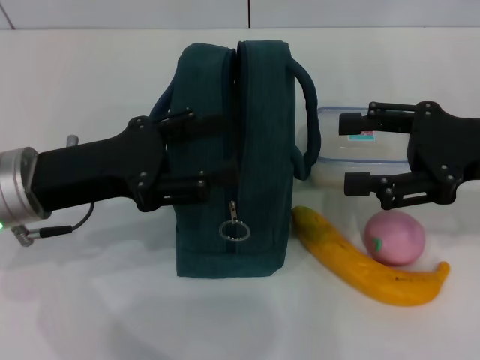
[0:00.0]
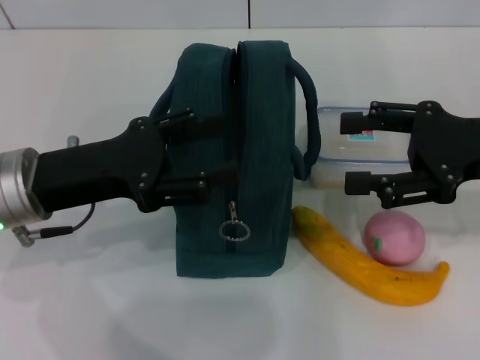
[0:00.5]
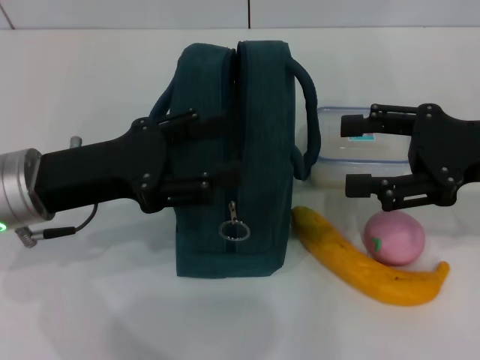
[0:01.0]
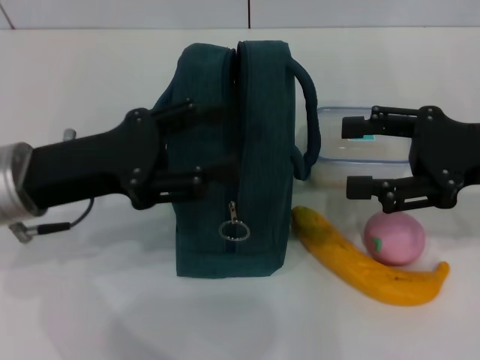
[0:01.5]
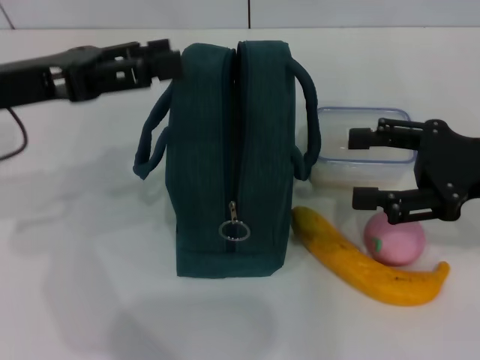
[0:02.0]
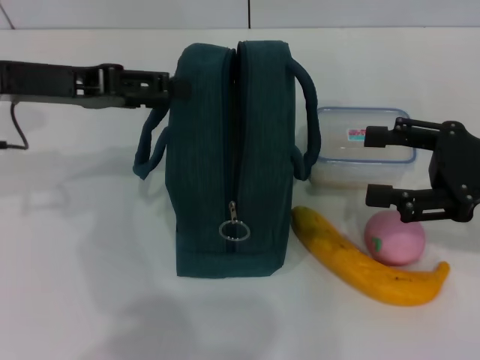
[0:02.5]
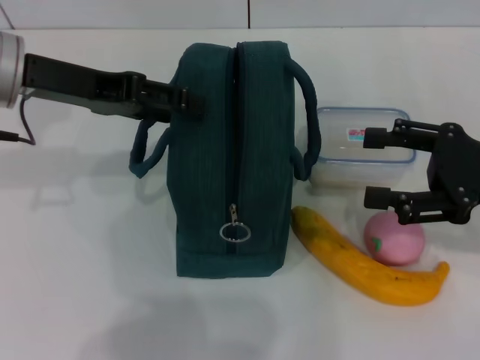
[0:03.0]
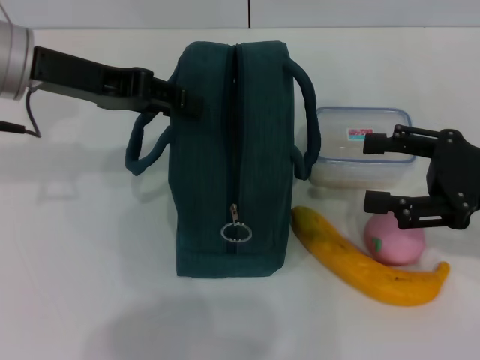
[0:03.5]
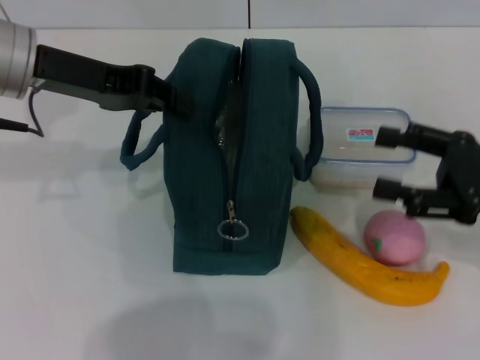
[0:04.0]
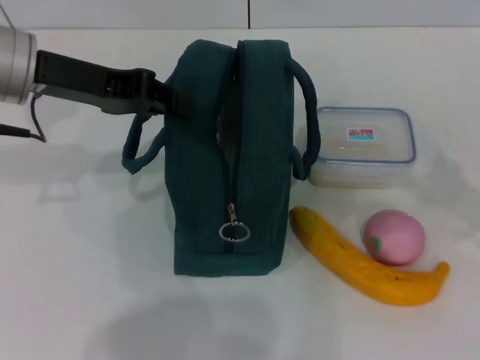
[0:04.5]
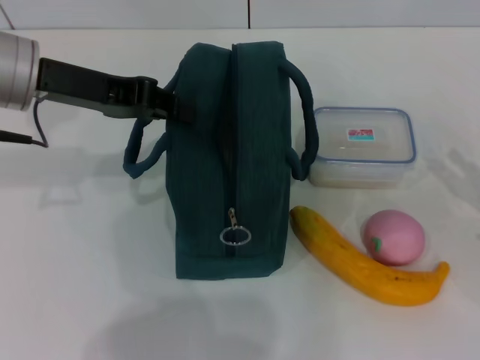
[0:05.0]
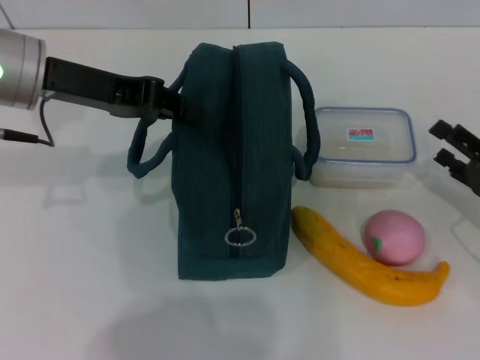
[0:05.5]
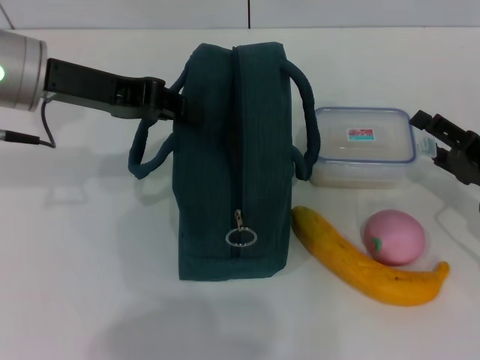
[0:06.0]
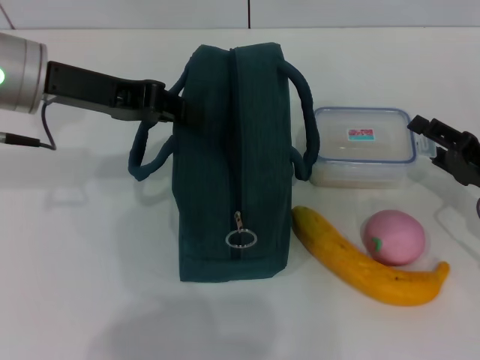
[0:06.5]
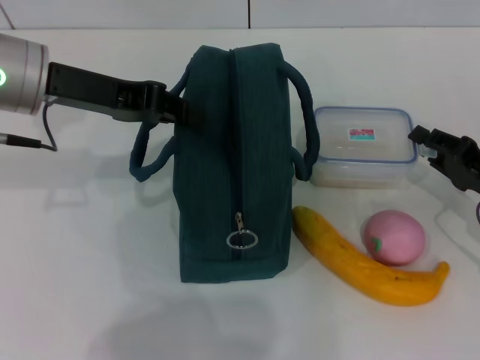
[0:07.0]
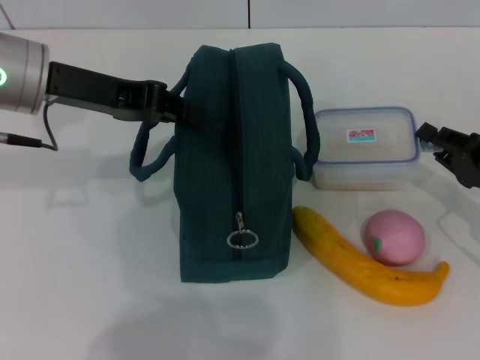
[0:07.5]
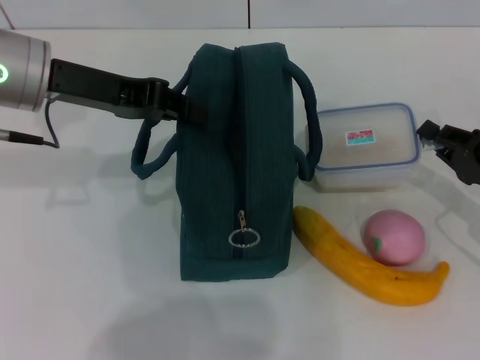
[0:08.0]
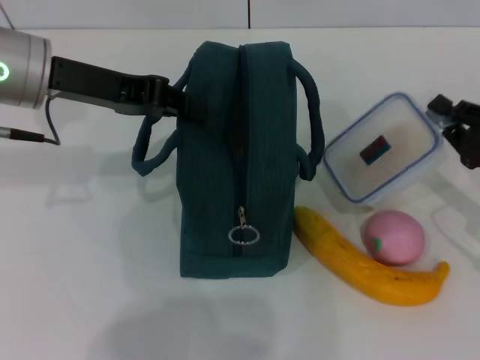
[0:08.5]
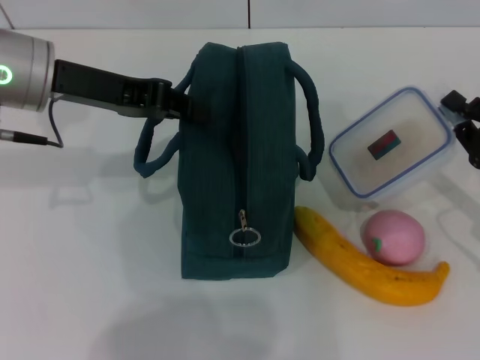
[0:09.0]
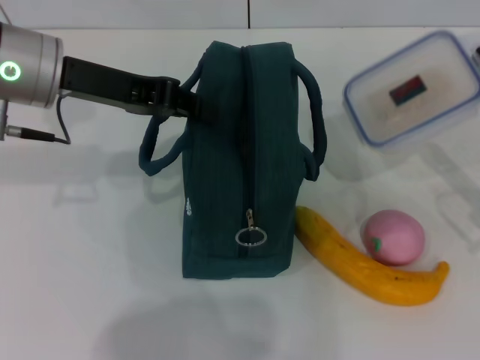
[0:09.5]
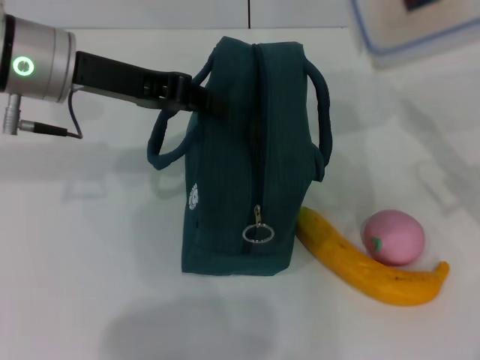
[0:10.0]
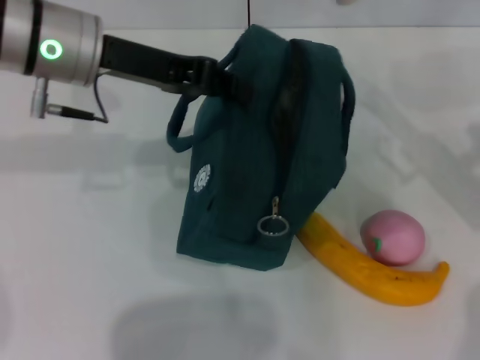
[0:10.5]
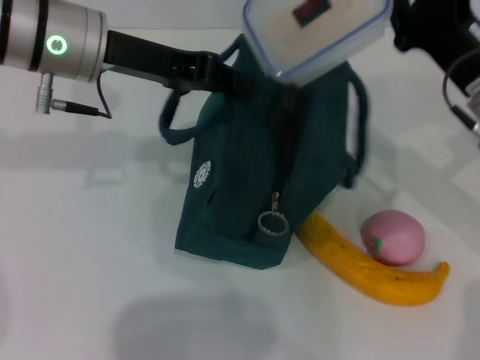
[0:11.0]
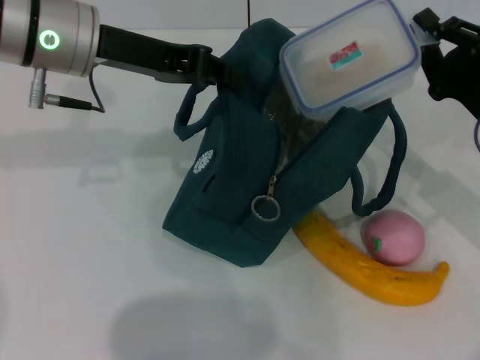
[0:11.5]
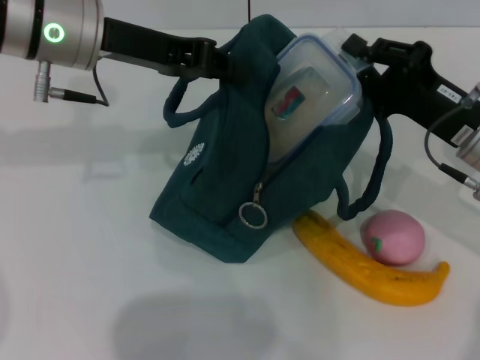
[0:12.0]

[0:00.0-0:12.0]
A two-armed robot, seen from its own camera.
Step, 0.0 to 4.0 s: Hold the lunch bag with your left hand.
Step, 5.0 to 8.0 s: Pick up the lunch box with your right hand.
0.0 to 2.0 s: The left gripper is displaced upward by roughly 5 cm.
2.0 to 4.0 s: The left gripper heads forward, covering roughly 5 cm, and closes its fingers.
4.0 to 6.0 s: The right gripper moves downward, about 10 cm.
6.0 to 8.0 s: The right gripper closes.
8.0 to 10.0 s: The right gripper travels upward by about 5 cm.
10.0 to 12.0 s: The right gripper heads to the left, covering some 5 cm.

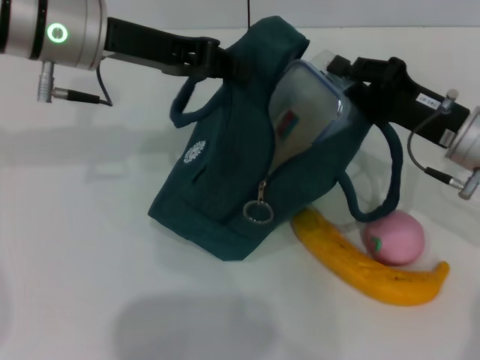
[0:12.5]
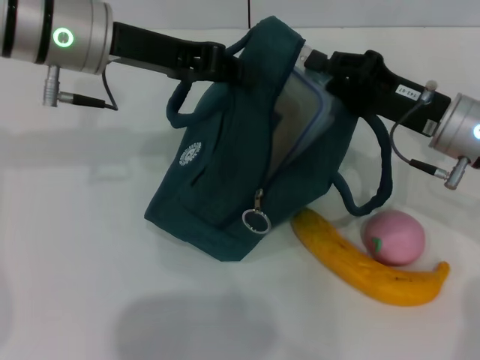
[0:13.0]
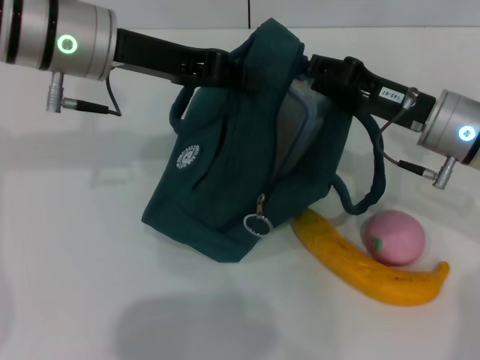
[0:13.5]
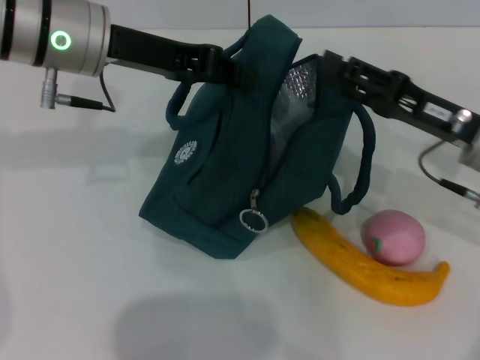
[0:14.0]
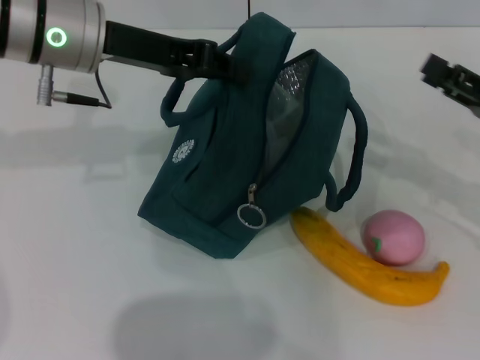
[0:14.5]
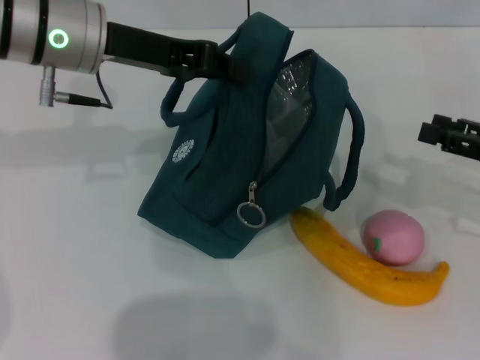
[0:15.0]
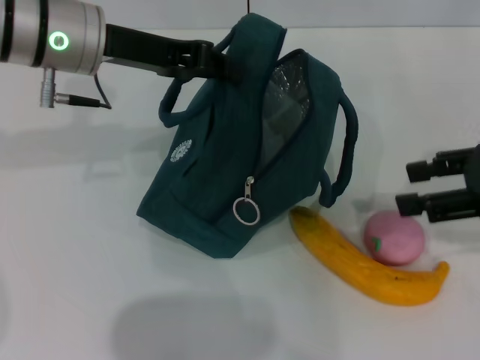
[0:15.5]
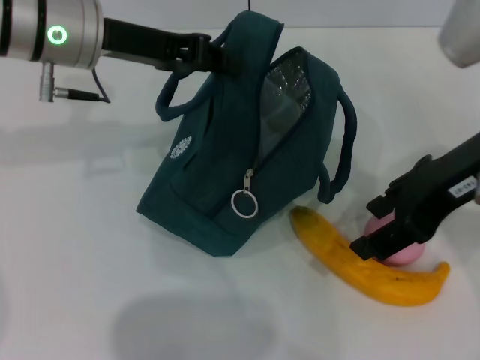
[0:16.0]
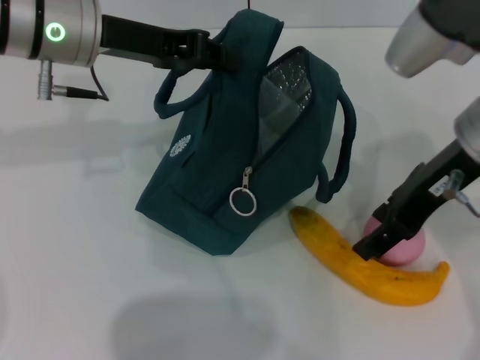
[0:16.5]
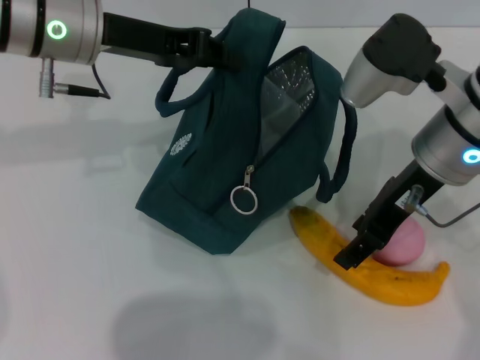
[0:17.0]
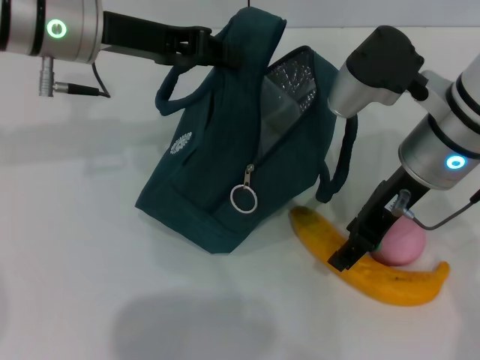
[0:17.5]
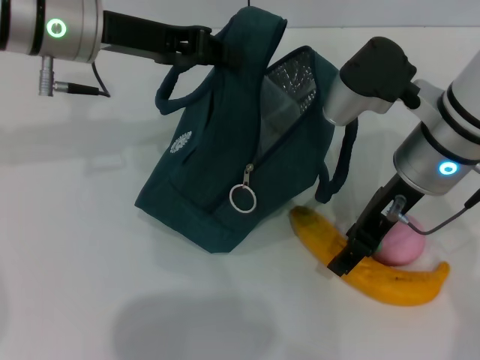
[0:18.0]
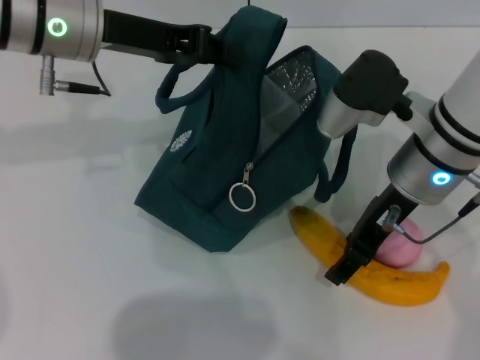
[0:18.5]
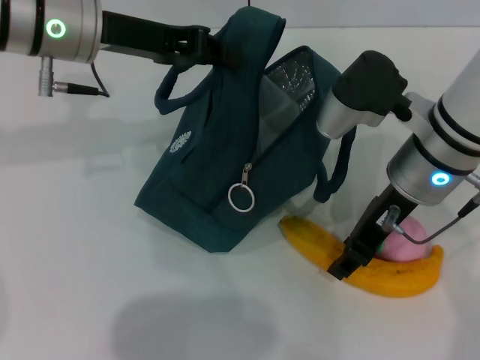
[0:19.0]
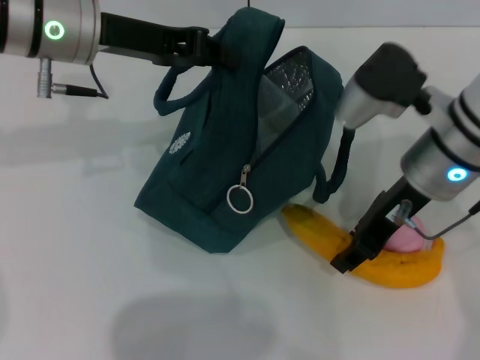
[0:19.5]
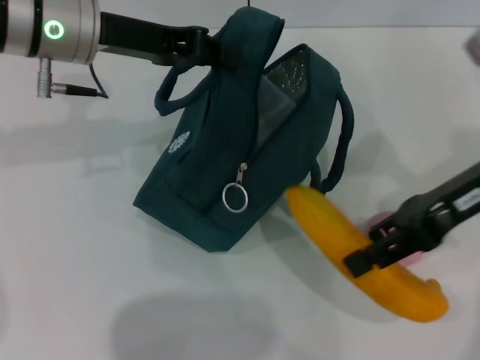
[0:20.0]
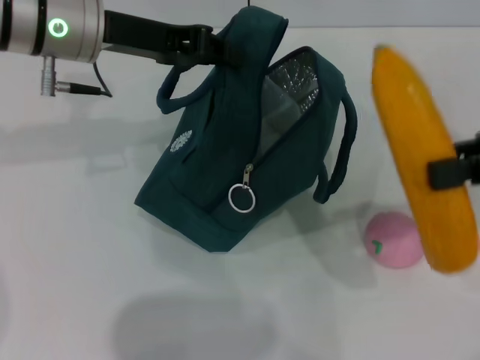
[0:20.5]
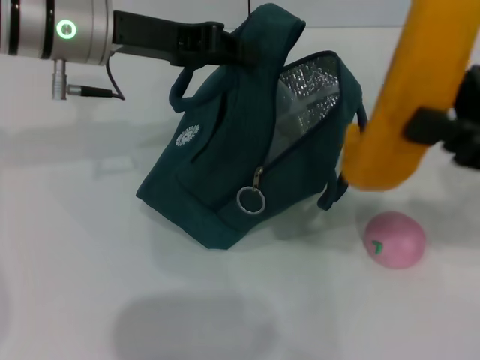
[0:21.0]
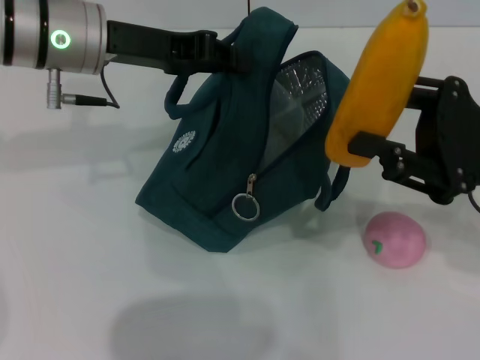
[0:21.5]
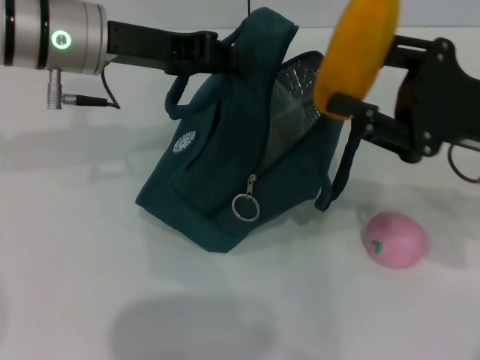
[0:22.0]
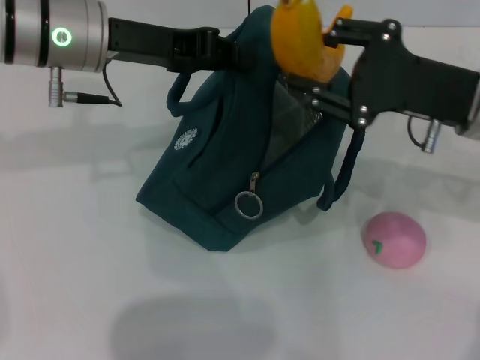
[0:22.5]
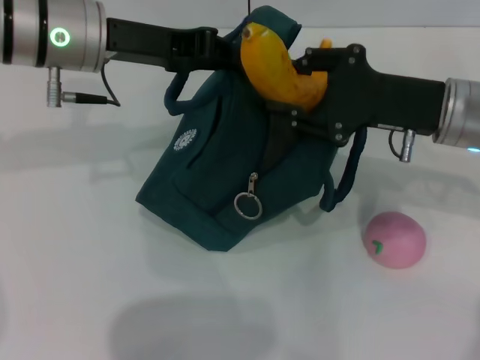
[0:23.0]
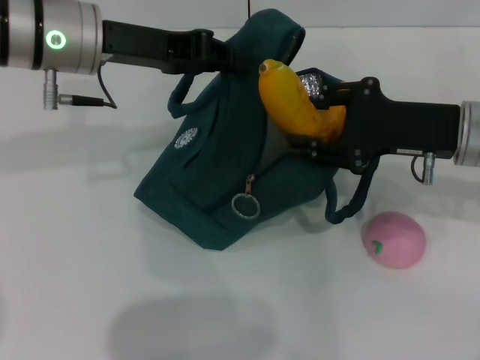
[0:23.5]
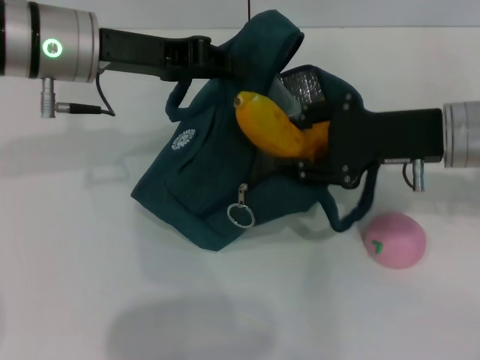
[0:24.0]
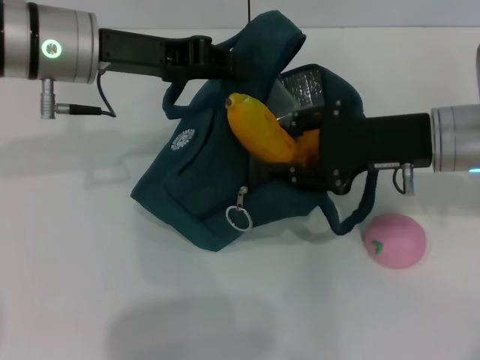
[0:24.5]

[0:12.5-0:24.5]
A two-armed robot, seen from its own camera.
Step, 14.0 to 19.0 s: Take the banana with your right hand.
12.5 to 14.5 s: The right gripper heads to the right, covering approximately 10 cm, and opens up.
14.5 to 16.5 s: The right gripper is displaced to the left and upward by some 20 cm.
16.5 to 18.5 s: The right gripper moves downward, roughly 5 cm.
18.5 to 20.5 s: The right gripper is displaced to the right by some 15 cm.
20.5 to 22.5 s: The right gripper goes roughly 10 cm to the left and downward.

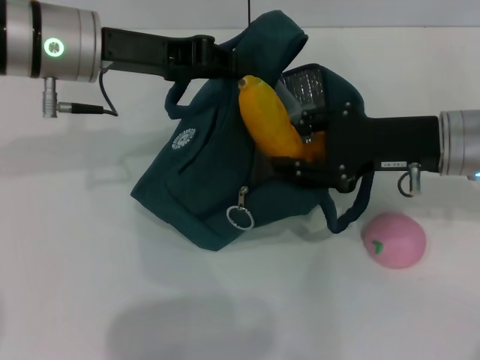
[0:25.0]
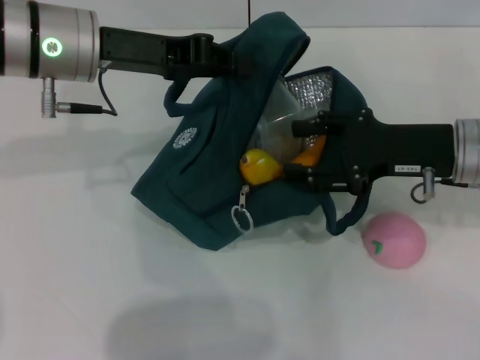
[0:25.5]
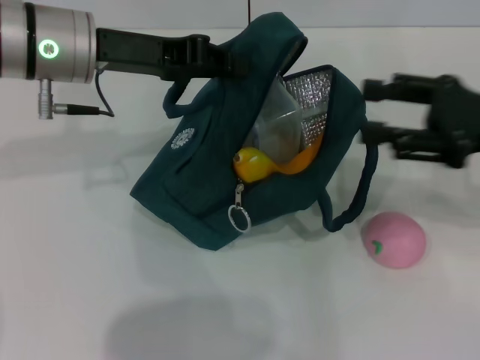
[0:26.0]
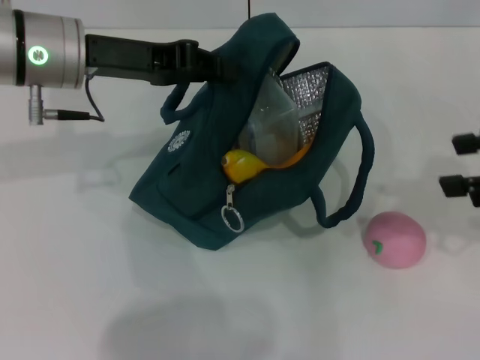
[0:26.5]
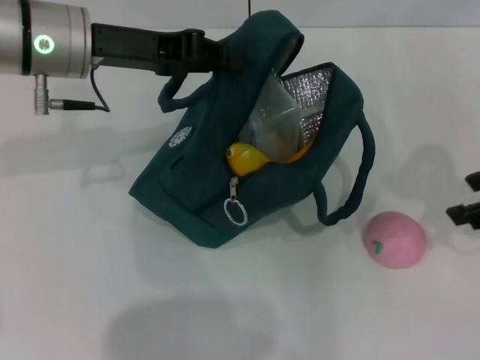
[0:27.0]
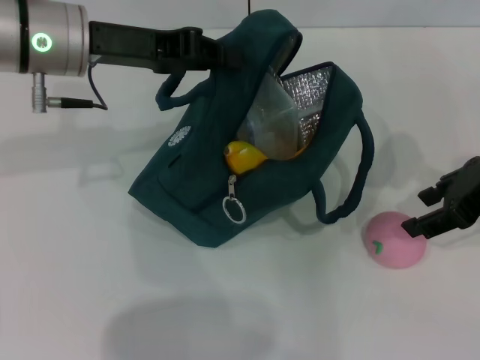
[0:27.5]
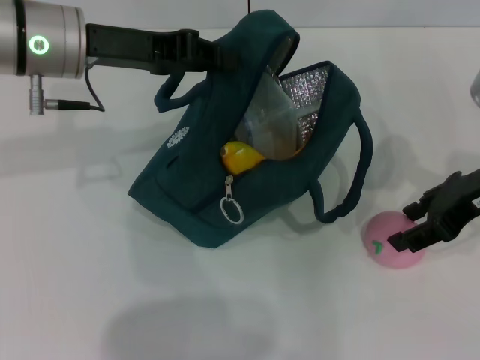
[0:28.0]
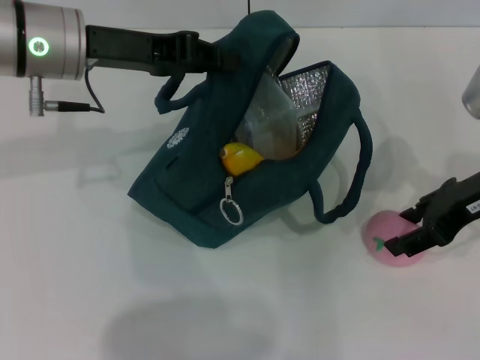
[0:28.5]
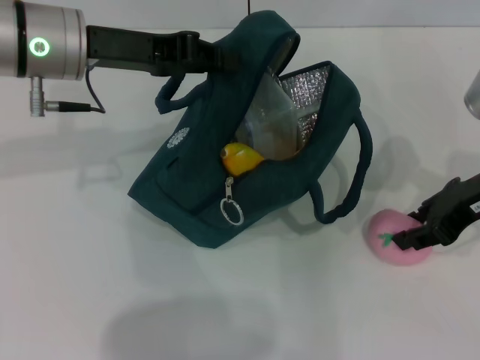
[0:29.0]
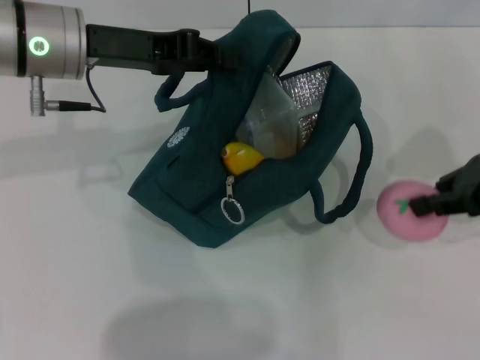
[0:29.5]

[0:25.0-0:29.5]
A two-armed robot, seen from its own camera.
Step, 26.0 to 29.0 s: Grab the peach with your right hand.
25.0 to 27.0 s: The right gripper shifts roughly 15 cm upward, to the right and backward.
27.0 to 29.5 s: The right gripper closes up.
